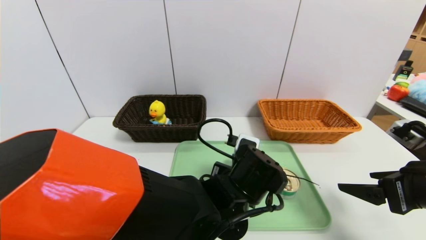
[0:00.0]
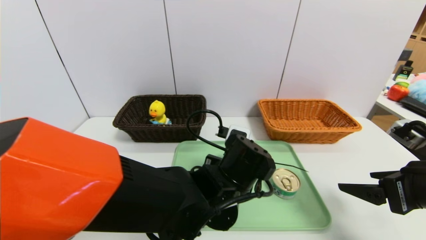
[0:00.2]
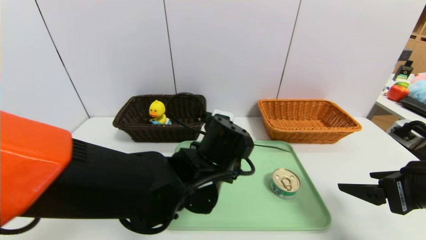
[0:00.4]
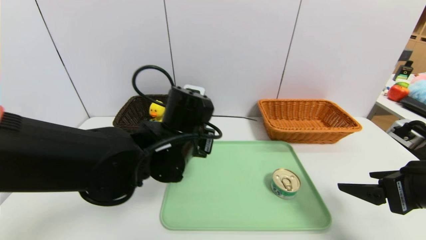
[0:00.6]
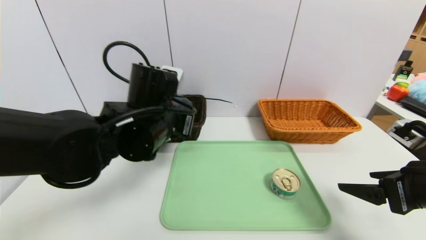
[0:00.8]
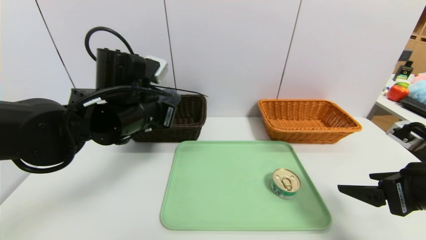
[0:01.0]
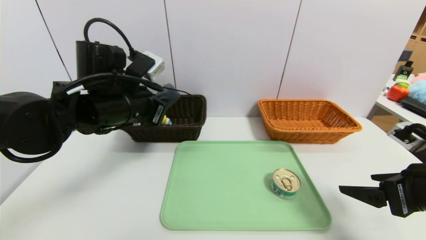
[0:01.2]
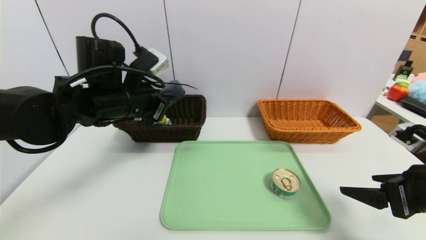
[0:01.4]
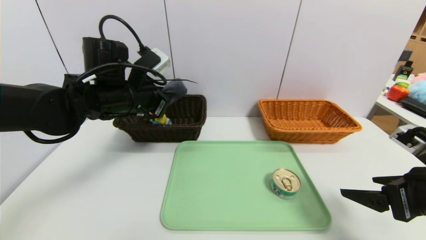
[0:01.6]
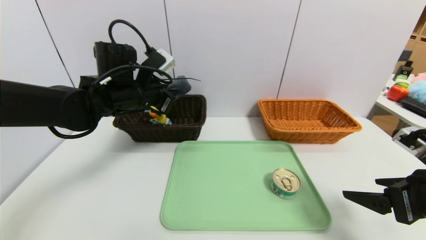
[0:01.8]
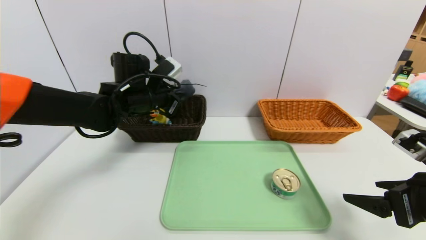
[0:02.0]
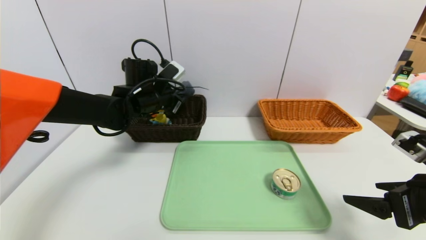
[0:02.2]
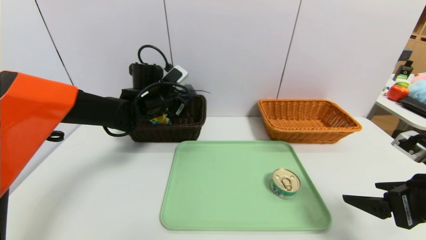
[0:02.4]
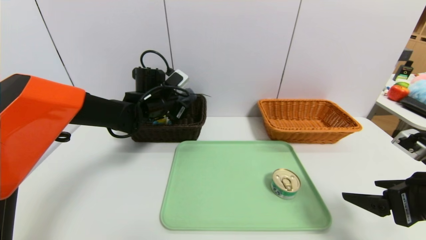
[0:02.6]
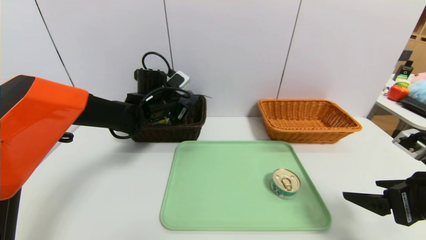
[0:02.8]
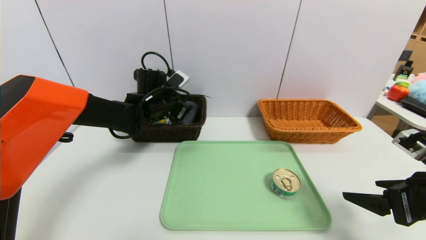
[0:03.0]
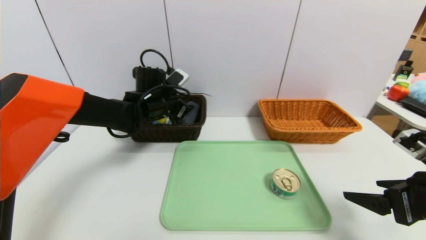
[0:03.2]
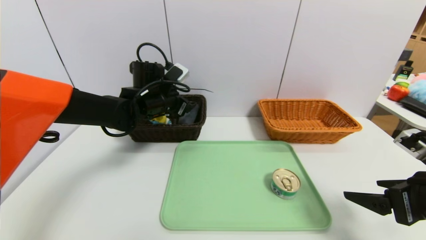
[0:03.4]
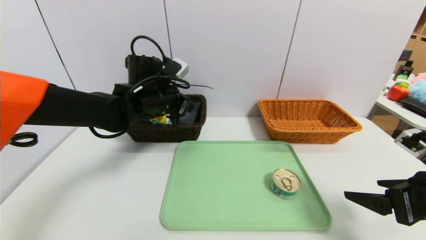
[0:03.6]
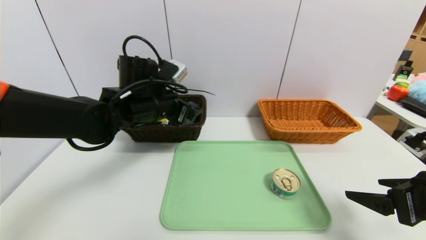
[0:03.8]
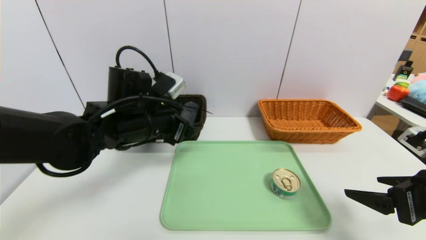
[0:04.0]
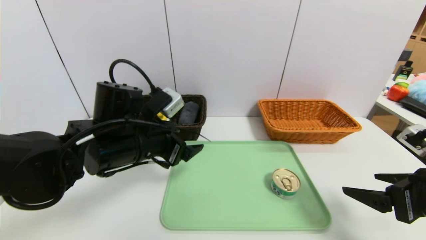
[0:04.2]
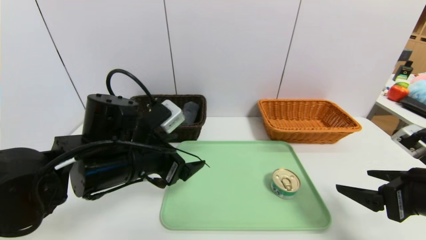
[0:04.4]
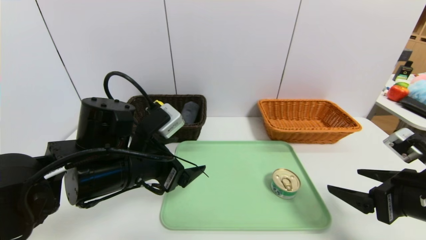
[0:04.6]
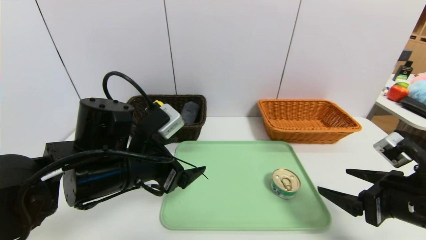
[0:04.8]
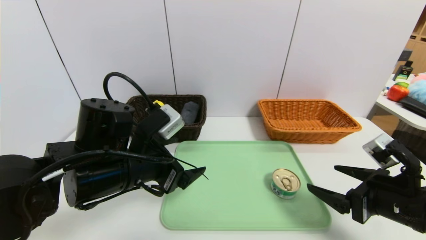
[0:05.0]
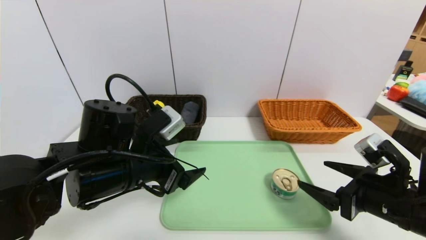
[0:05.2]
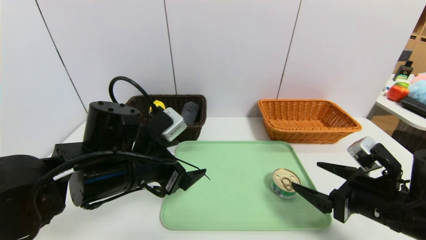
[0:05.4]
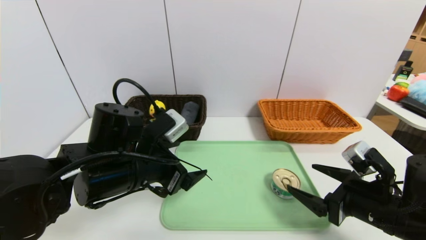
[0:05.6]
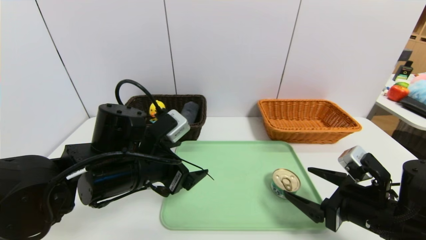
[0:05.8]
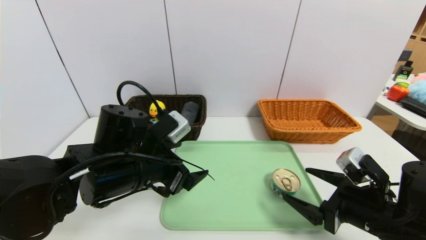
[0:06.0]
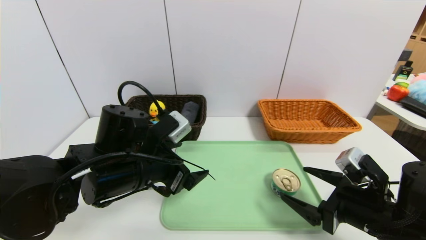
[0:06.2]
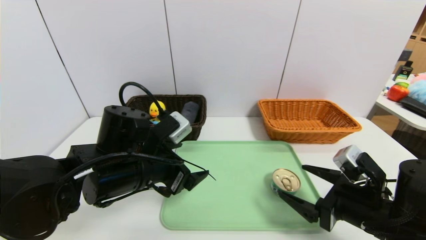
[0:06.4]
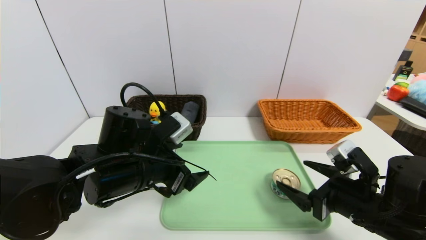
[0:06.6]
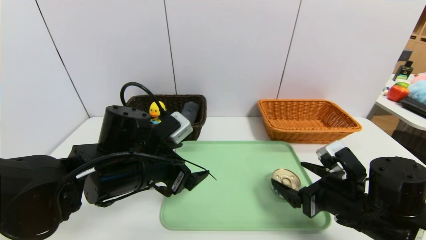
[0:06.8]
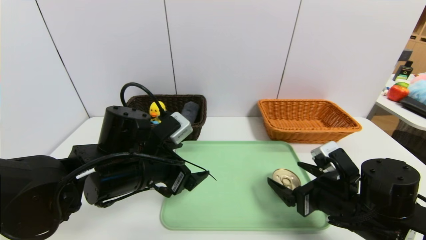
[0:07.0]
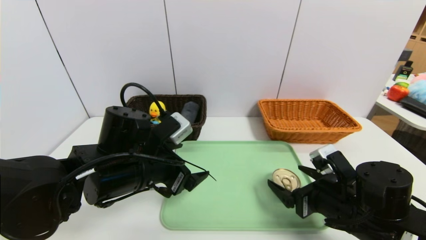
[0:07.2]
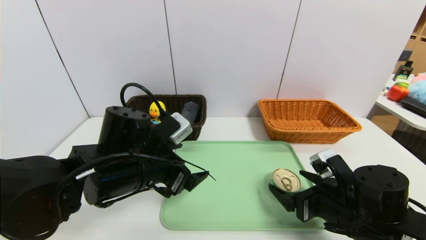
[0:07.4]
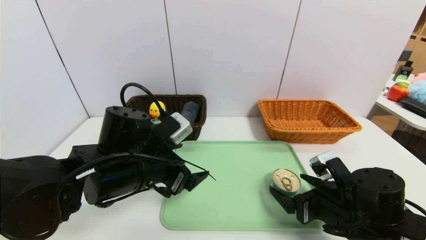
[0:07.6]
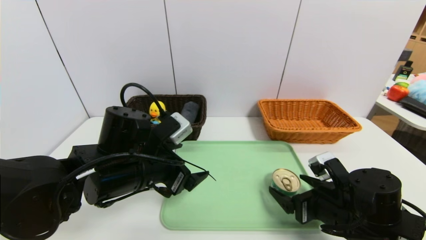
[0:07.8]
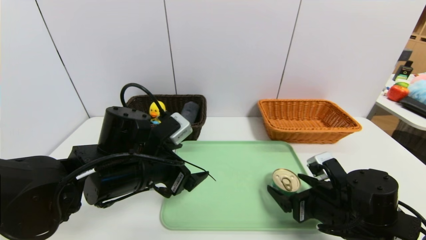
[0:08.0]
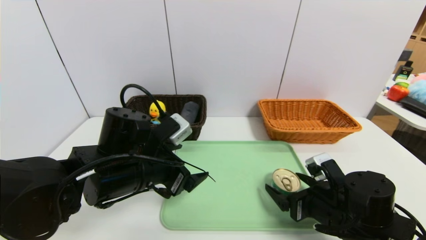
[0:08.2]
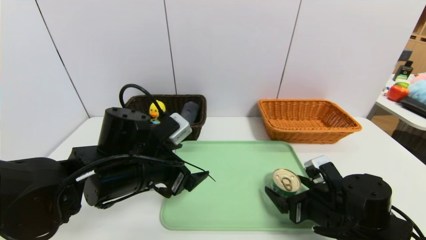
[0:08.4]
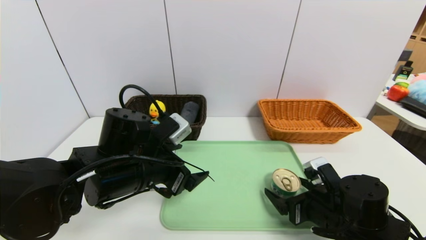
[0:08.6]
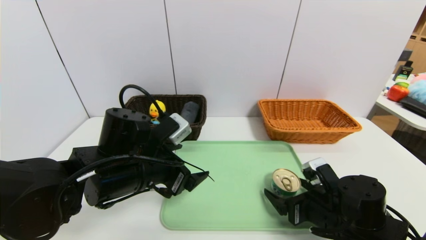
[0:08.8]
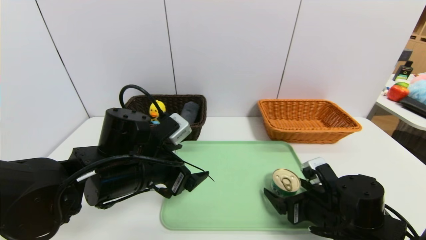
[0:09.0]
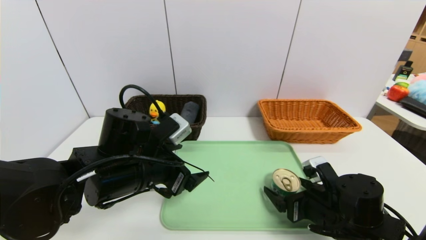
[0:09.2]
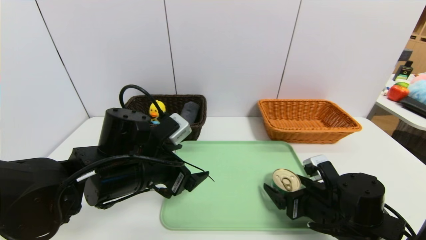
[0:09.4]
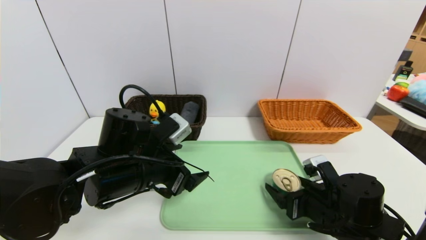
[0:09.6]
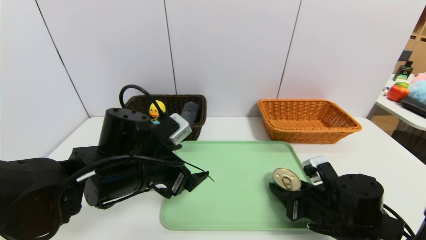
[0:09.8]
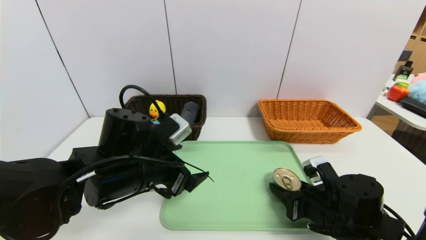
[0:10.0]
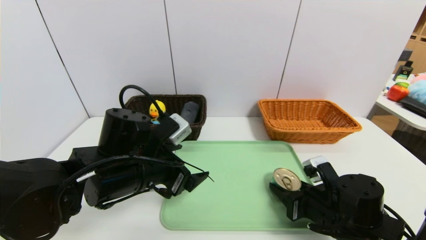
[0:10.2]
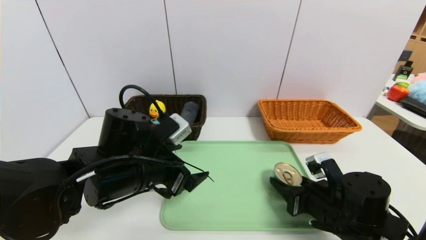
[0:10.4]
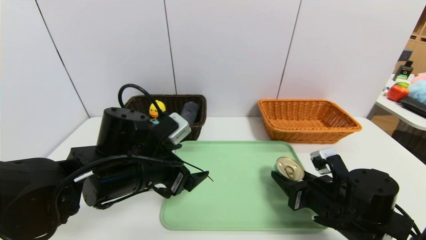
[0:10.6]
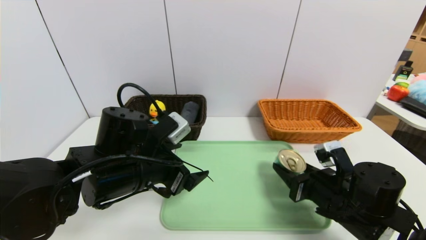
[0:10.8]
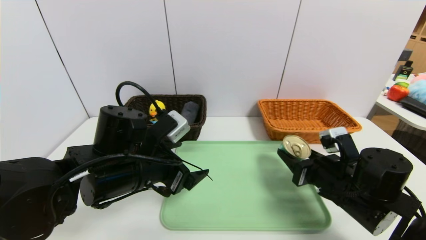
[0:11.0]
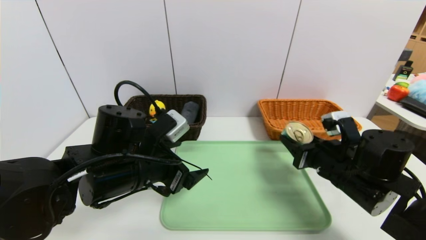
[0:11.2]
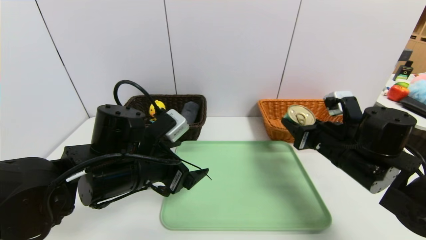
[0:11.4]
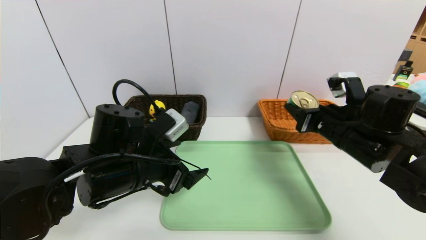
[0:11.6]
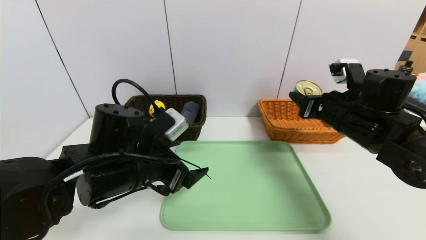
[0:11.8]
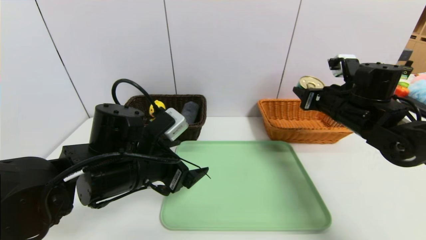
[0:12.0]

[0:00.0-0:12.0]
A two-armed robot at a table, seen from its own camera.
Task of the whole recording: place the food in the right basket with the right gripper, and place the non food items in the left basket with the left gripper.
Step, 0:00.0 to 0:03.2: Grasp the grey towel and put it in the left basket.
0:00.0 to 0:01.6: The left gripper moves to the left, upward and forward, about 25 cm.
0:01.6 to 0:03.0: The left gripper is displaced forward and downward by roughly 10 cm, and opens its fingers.
0:03.0 to 0:04.4: The left gripper shifts approximately 20 cm backward.
0:04.4 to 0:06.0: The right gripper heads downward and to the left, covering some 10 cm.
0:06.0 to 0:07.6: There are only small adjustments of the grippers.
0:07.6 to 0:09.0: The grippers move only a little.
0:09.0 to 0:10.4: The right gripper closes.
0:10.4 to 0:12.0: The right gripper is displaced upward and forward by some 20 cm.

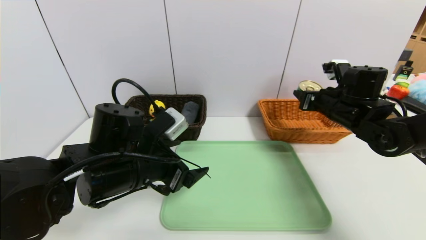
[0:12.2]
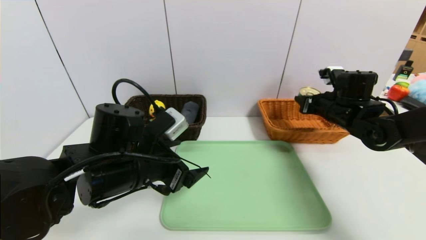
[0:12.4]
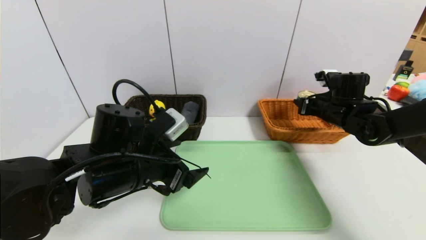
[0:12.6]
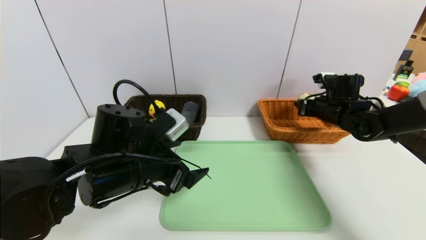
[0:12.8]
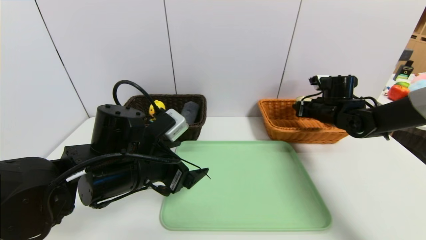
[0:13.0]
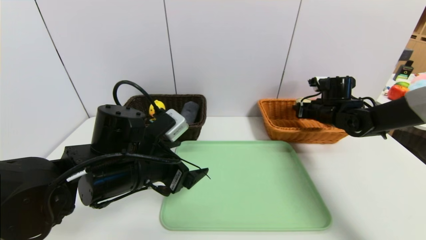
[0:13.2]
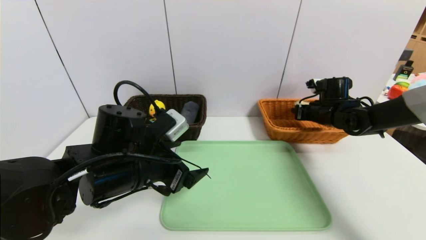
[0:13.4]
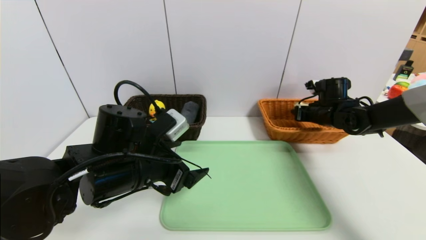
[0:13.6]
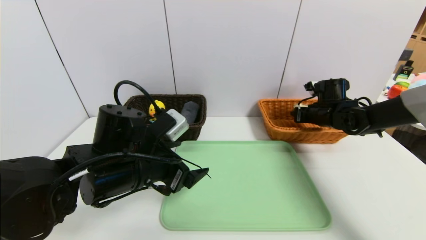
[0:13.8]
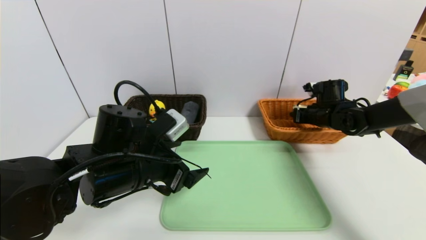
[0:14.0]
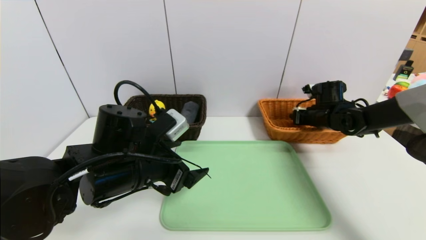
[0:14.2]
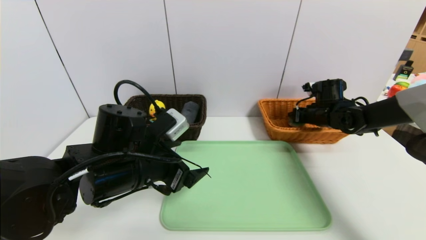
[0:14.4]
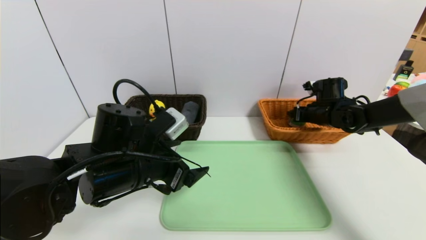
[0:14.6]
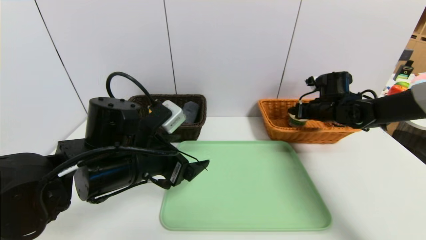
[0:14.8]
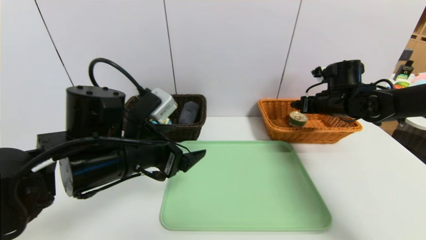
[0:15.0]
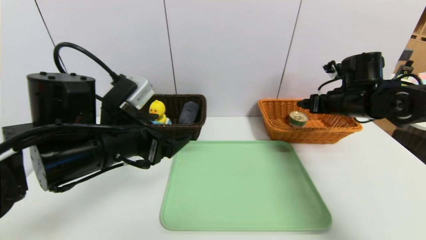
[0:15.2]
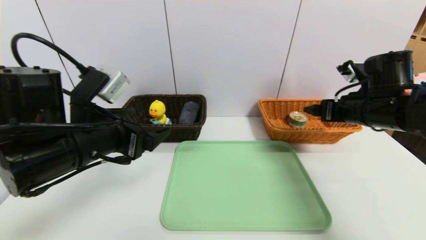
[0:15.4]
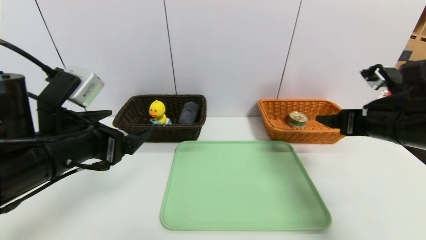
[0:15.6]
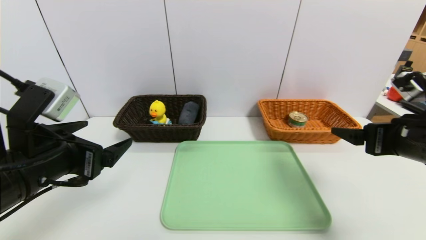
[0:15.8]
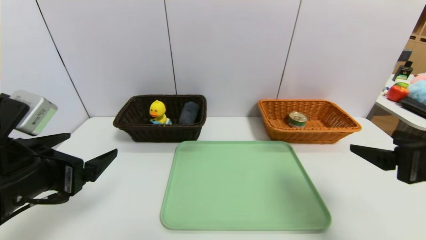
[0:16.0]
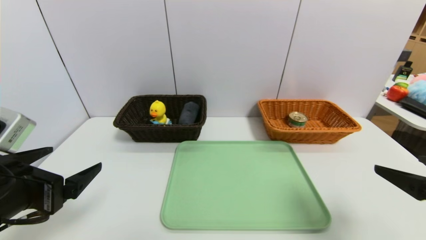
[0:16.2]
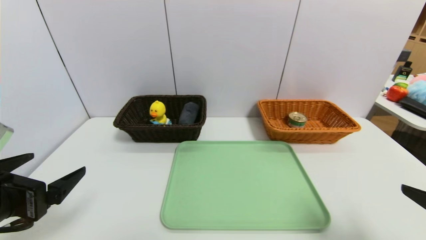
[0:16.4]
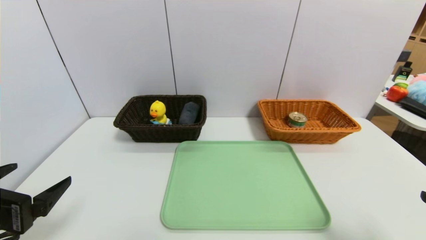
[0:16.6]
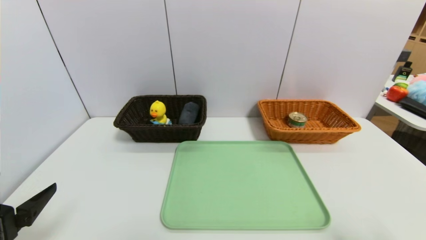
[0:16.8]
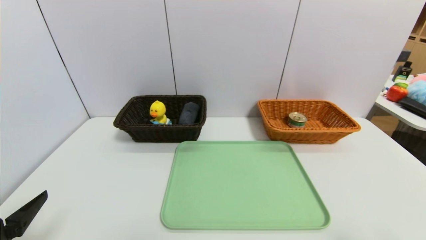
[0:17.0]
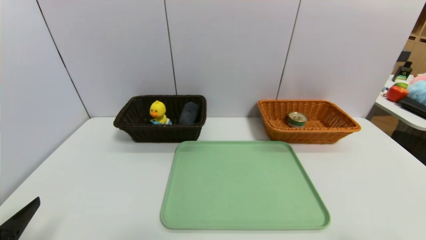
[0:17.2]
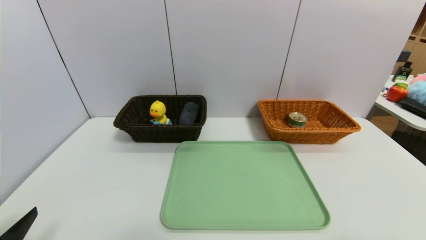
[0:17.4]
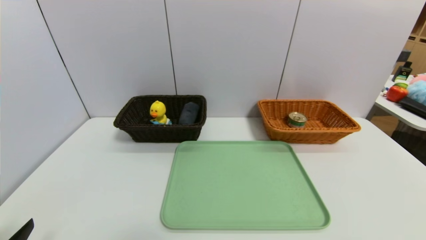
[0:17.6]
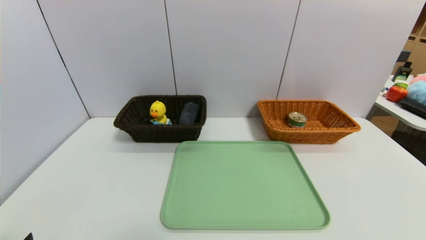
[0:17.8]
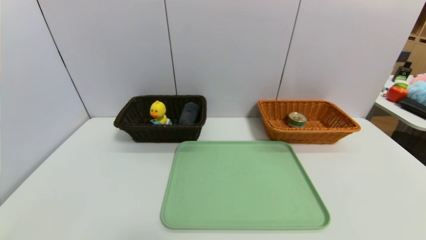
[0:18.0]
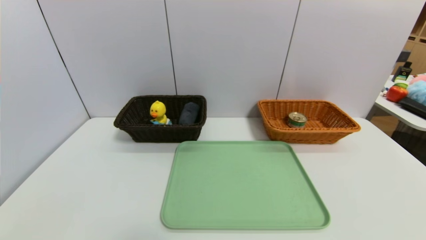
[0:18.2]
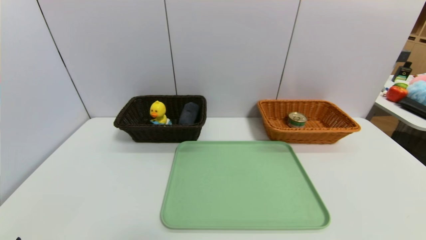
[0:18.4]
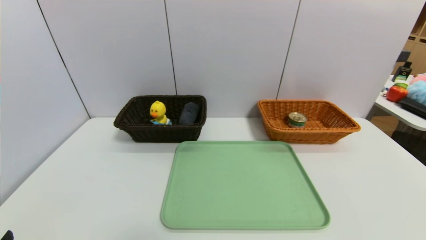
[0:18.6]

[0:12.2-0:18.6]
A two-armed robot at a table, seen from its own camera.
Task of the whole recording: place the food in the right basket with the right gripper, and place the non food items in the left basket with the left gripper.
Step, 0:12.2 to 0:14.8: Grasp the can and put it in the right basket.
0:12.2 to 0:13.8: The right gripper heads forward and downward, covering roughly 10 cm.
0:13.8 to 0:15.4: The left gripper goes approximately 10 cm upward and to the left. The right gripper goes approximately 15 cm backward and upward, and opens up.
0:15.4 to 0:17.0: The right gripper goes some 30 cm backward, while the left gripper travels backward, to the left and downward by about 20 cm.
0:17.0 to 0:18.6: The left gripper moves backward and downward, approximately 10 cm.
